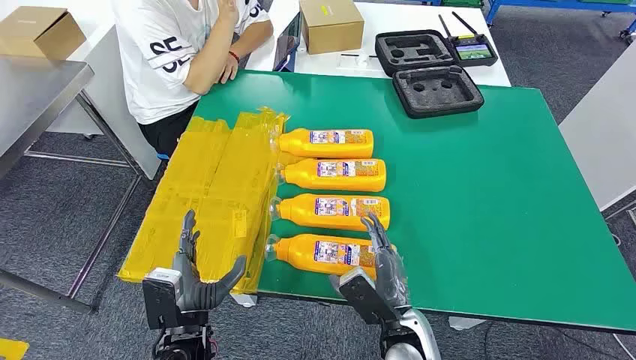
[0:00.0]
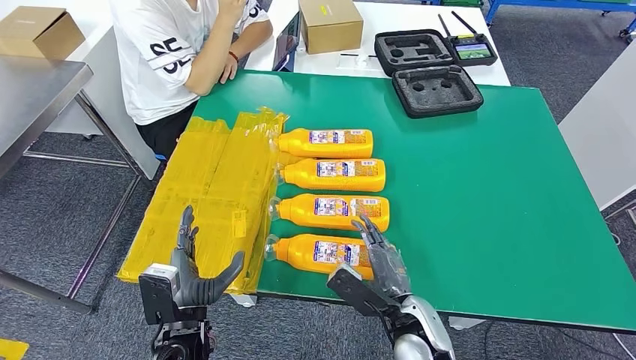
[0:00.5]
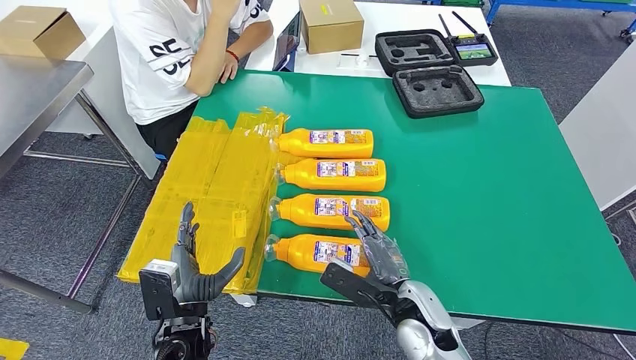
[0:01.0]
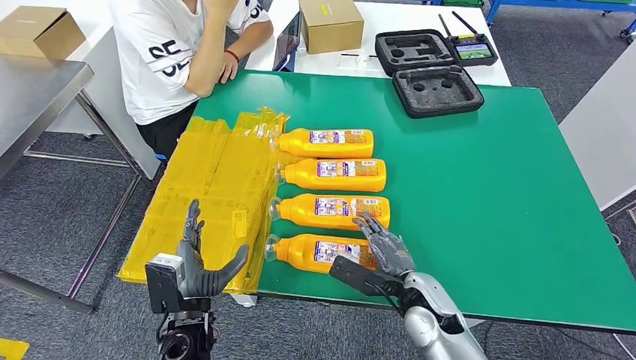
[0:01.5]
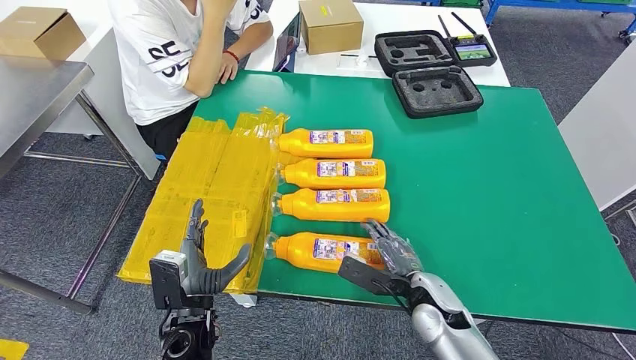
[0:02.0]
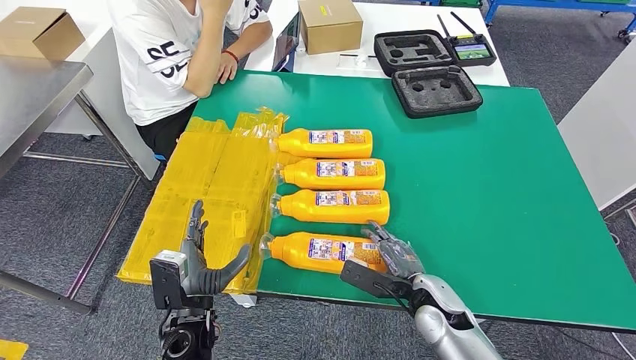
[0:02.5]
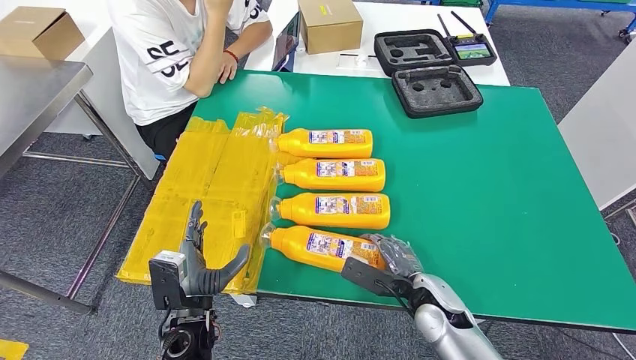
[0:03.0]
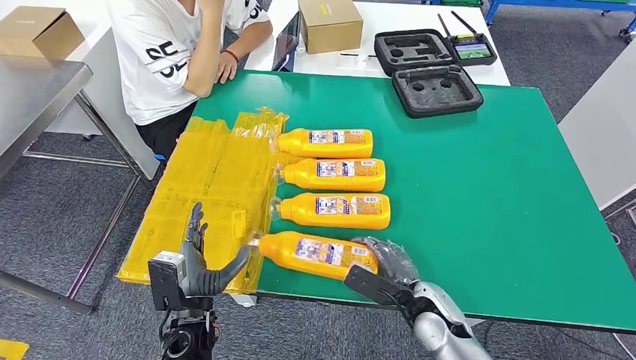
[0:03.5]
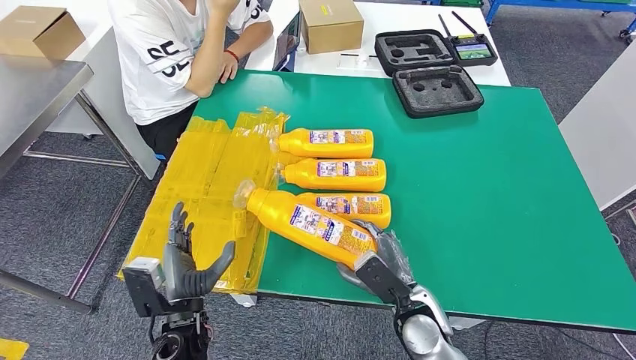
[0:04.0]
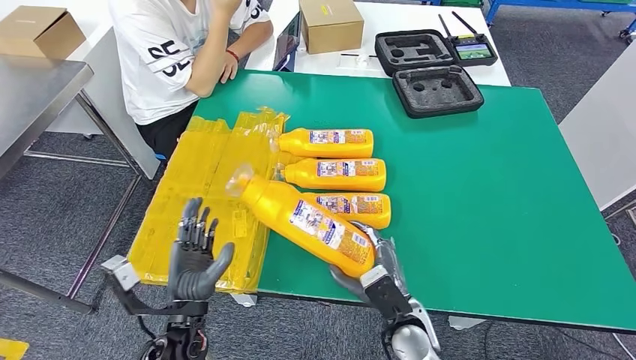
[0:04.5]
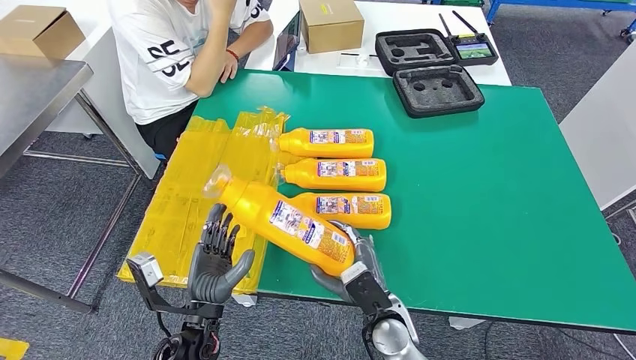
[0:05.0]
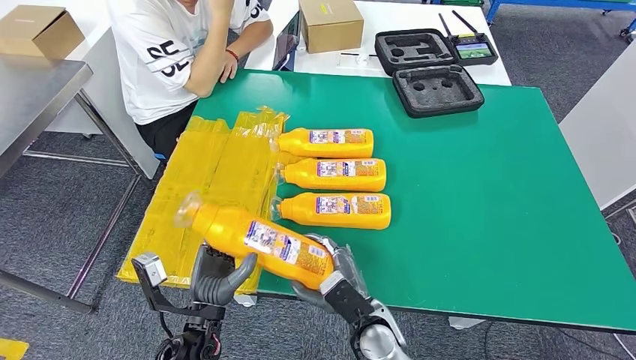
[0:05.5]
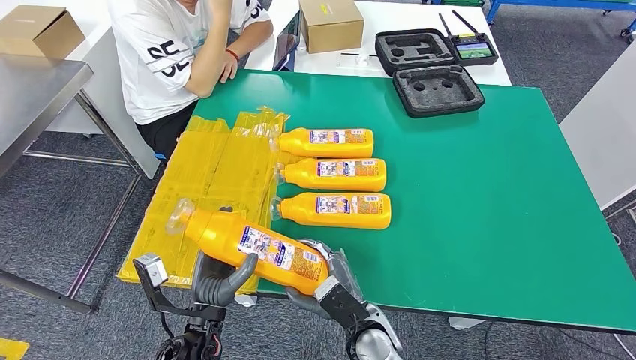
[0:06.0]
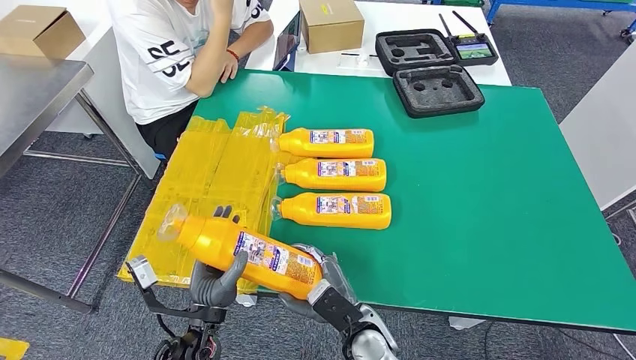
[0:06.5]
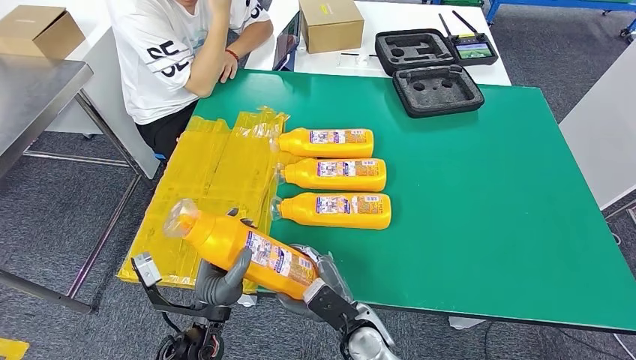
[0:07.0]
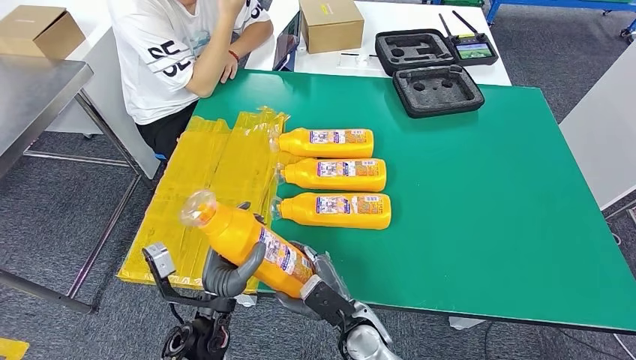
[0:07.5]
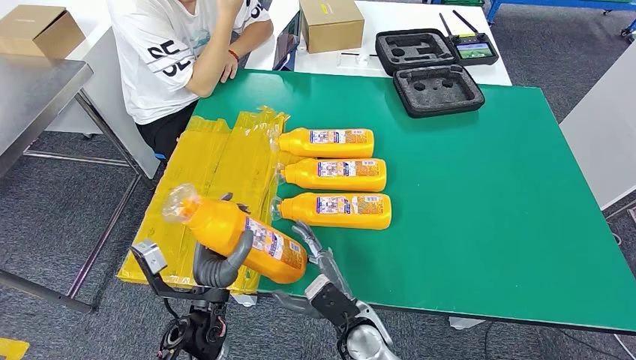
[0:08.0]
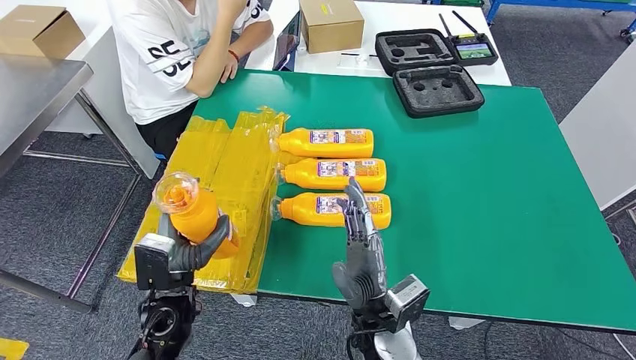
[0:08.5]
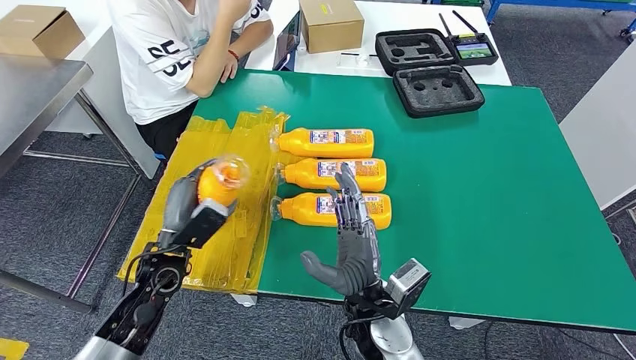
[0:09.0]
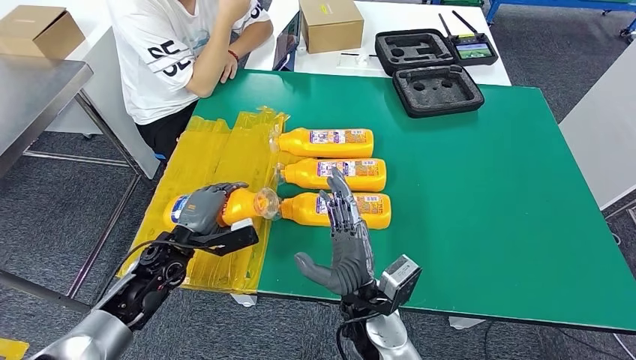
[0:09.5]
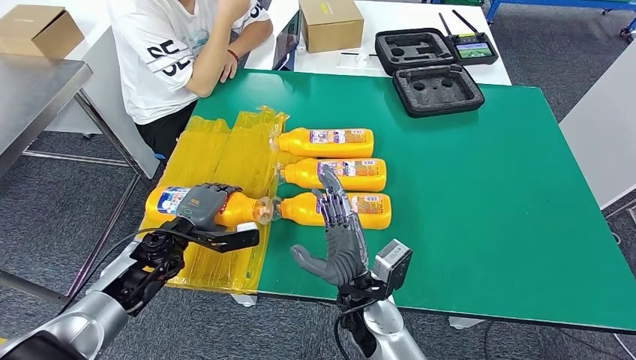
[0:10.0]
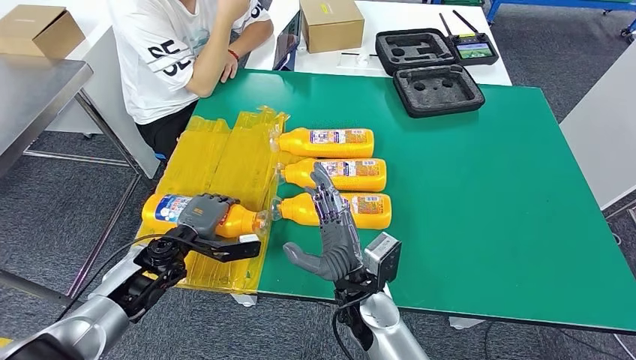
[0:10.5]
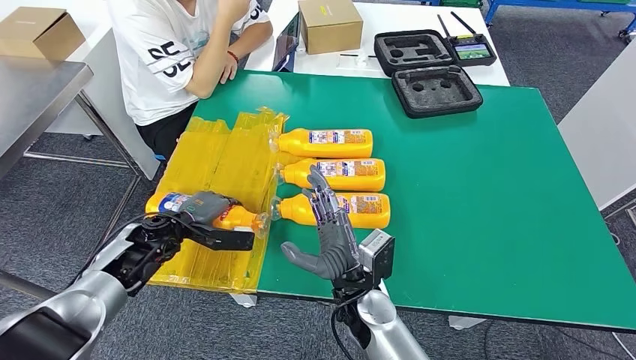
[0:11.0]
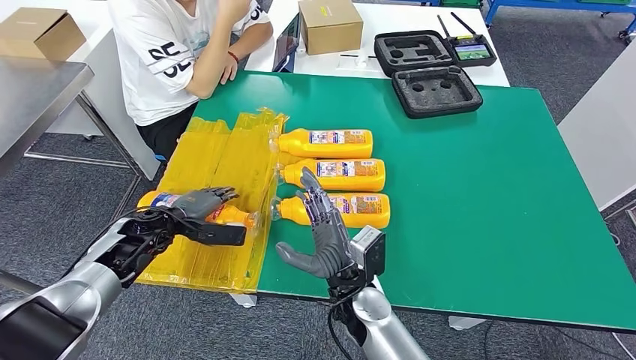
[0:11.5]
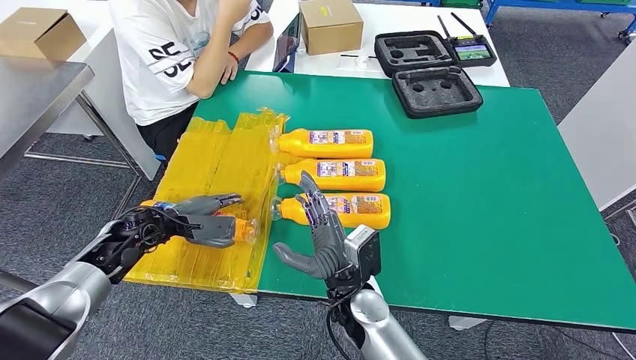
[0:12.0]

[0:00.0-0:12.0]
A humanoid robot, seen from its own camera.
Step, 0:00.0 to 0:06.5: Take the fast-moving consumer goods bottle from the table.
Step, 0:07.0 to 0:11.0: Flip the fast-moving consumer goods bottle to the front side.
0:04.0 to 0:06.0: The right hand moves to the left, roughly 10 cm.
0:06.0 to 0:08.0: The hands make only small movements.
0:08.0 to 0:10.0: The left hand is displaced forward and to the left by roughly 15 cm; the right hand goes roughly 5 cm upward.
0:10.0 to 0:12.0: The left hand ends up approximately 5 cm from where it was.

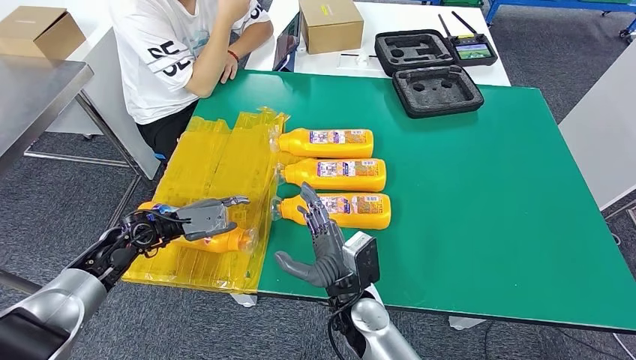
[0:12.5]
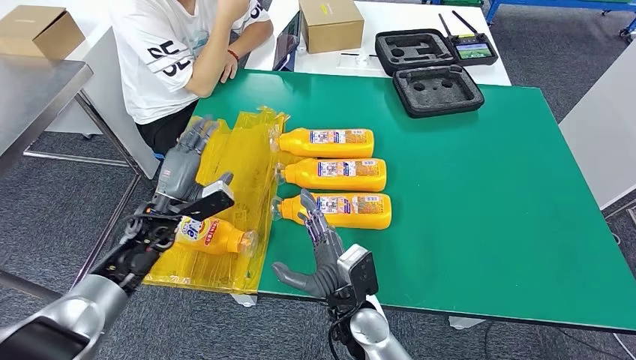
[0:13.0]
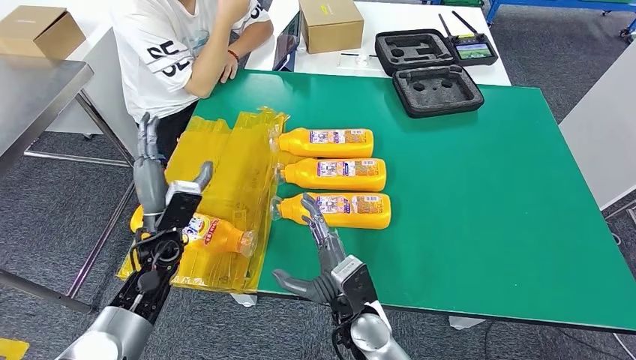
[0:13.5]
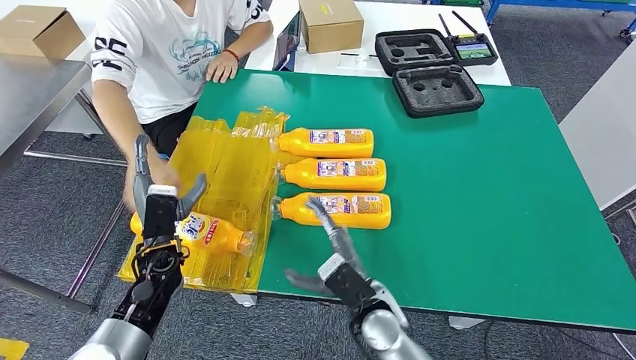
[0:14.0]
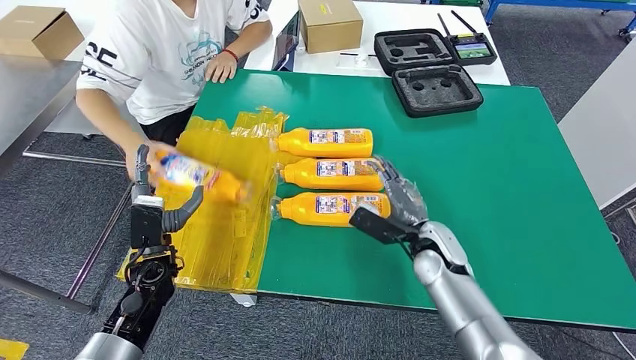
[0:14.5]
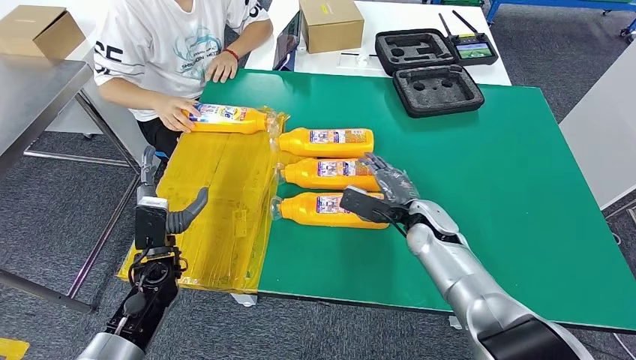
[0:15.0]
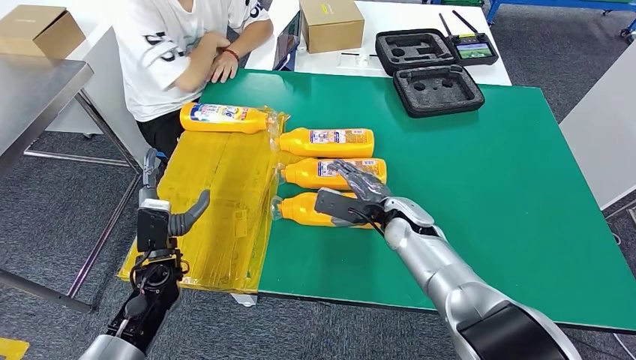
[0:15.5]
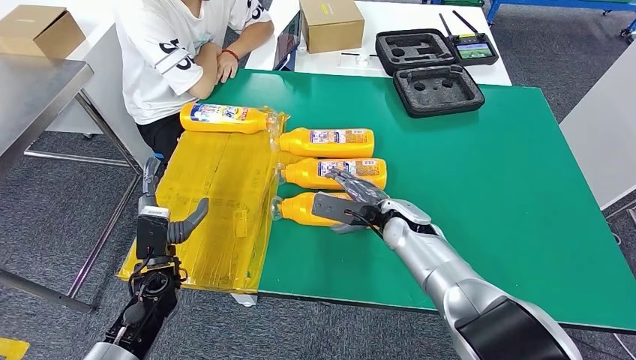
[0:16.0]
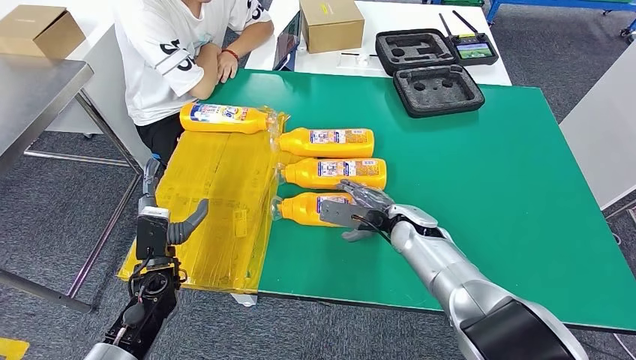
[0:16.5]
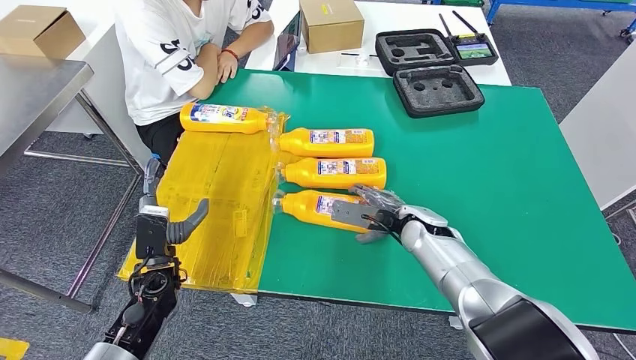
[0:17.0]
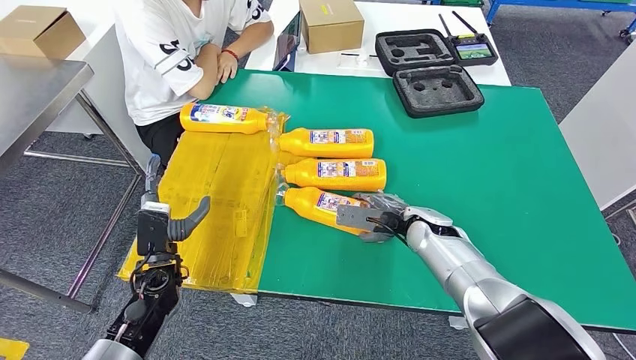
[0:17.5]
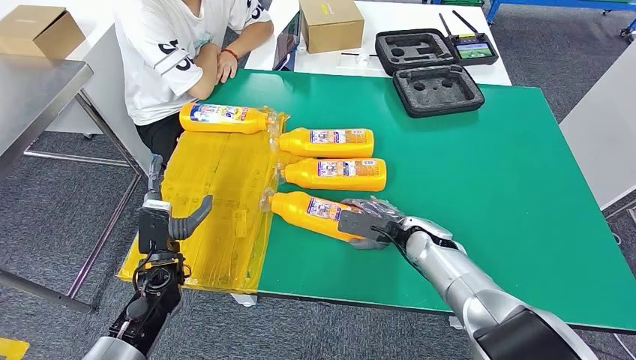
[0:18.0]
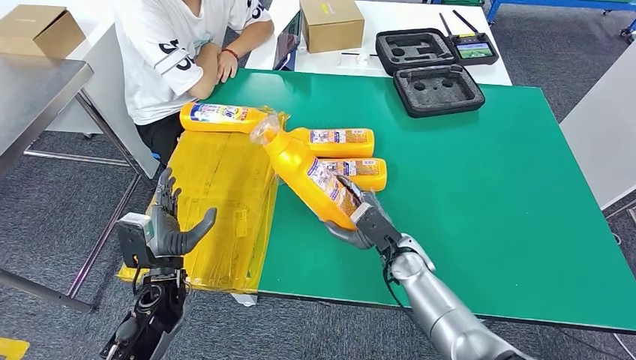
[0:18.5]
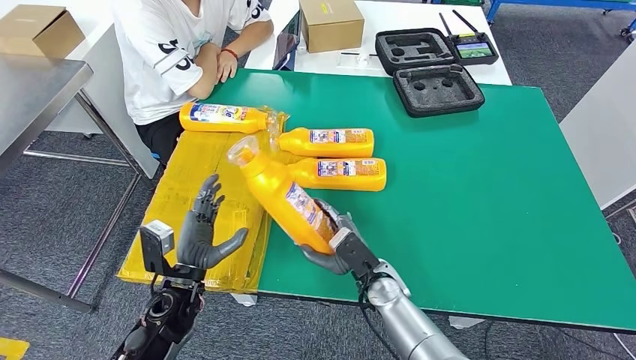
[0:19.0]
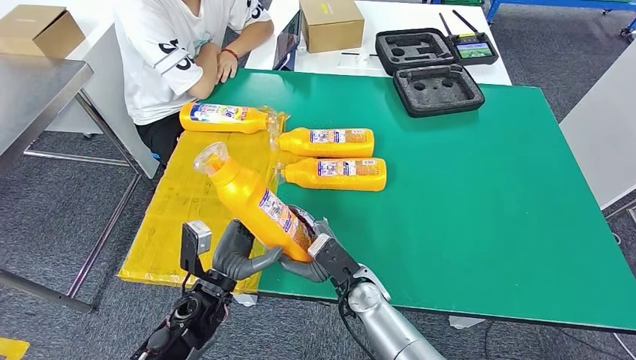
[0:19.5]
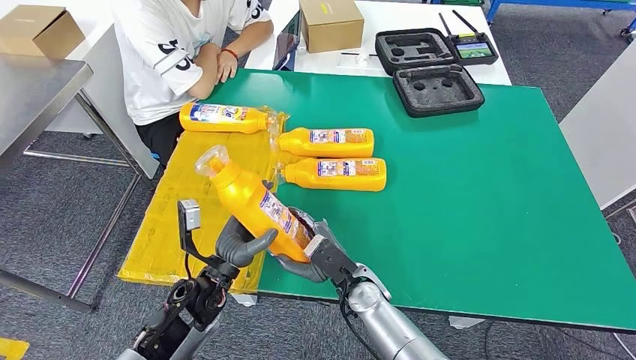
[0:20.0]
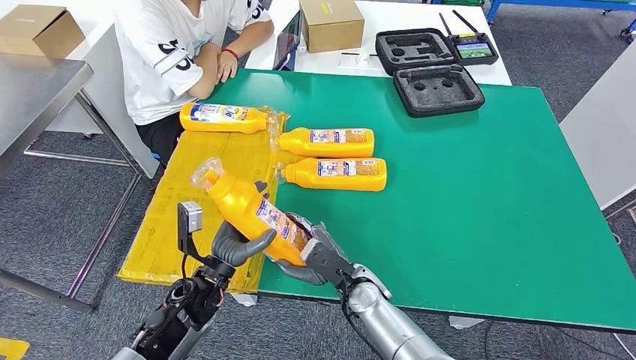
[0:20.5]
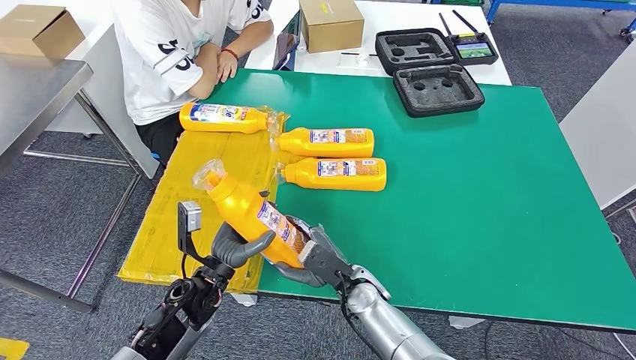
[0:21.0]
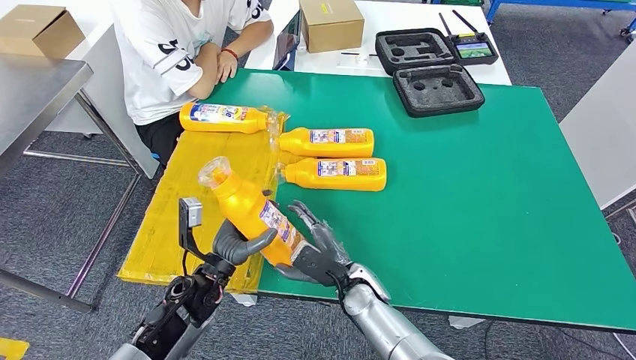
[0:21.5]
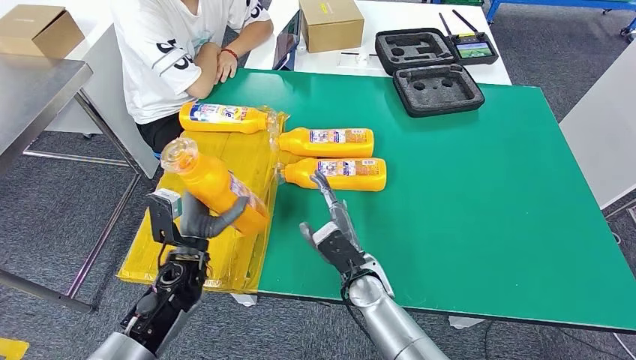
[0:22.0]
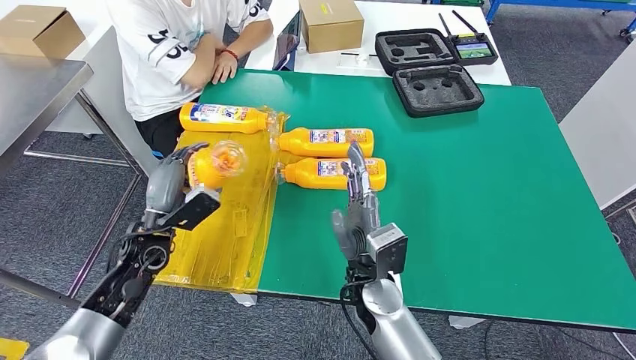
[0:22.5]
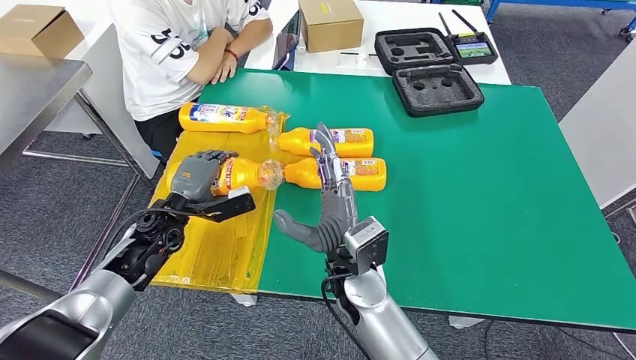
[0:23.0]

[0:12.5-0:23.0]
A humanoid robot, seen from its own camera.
Step, 0:12.5 to 0:19.0: Pick up the fast-moving consumer goods bottle from the table.
0:14.5 to 0:16.5: The right hand moves about 5 cm.
0:16.5 to 0:19.0: The left hand is displaced to the right by roughly 5 cm. Meanwhile the right hand goes about 10 cm backward and downward.
0:21.0 to 0:23.0: The left hand is displaced forward, to the left and upward by approximately 15 cm. Meanwhile the right hand heads upward, covering about 15 cm.
